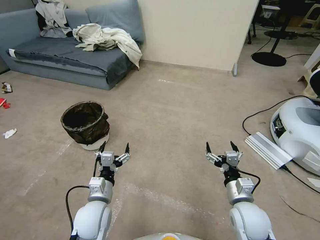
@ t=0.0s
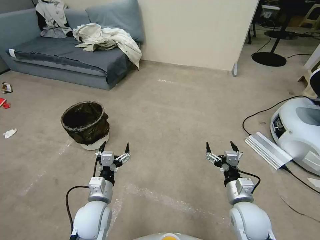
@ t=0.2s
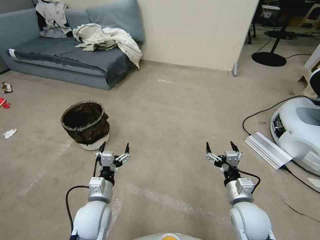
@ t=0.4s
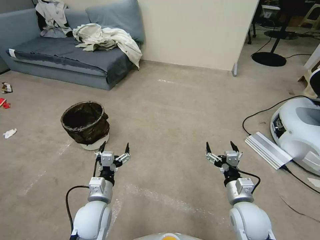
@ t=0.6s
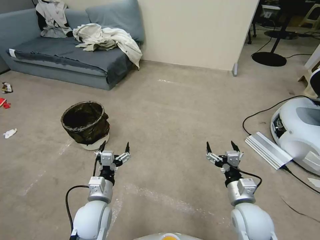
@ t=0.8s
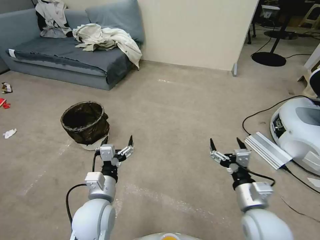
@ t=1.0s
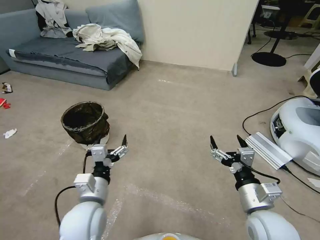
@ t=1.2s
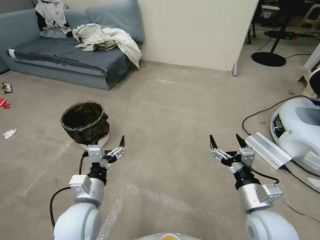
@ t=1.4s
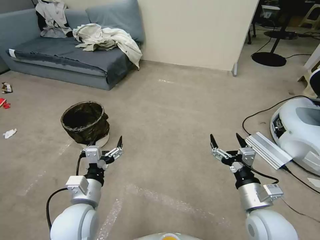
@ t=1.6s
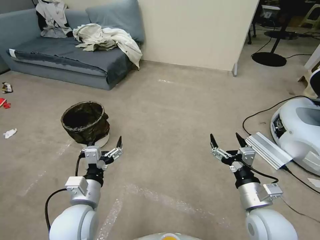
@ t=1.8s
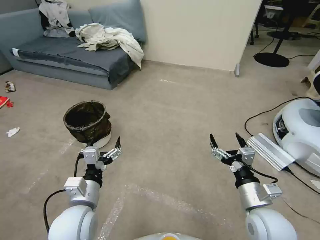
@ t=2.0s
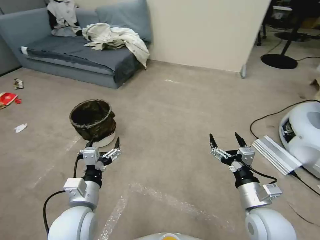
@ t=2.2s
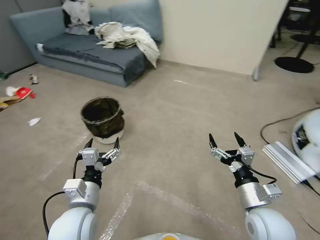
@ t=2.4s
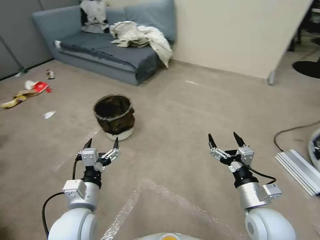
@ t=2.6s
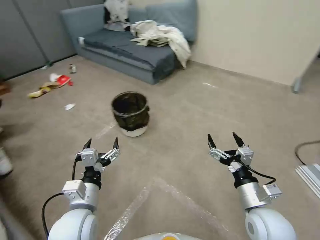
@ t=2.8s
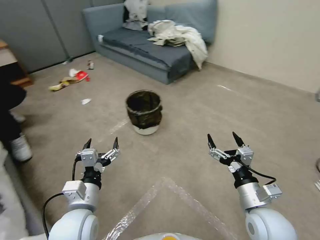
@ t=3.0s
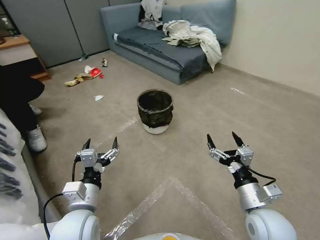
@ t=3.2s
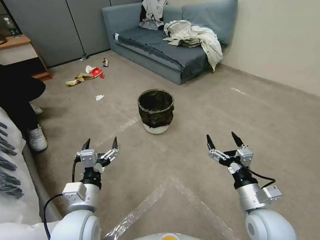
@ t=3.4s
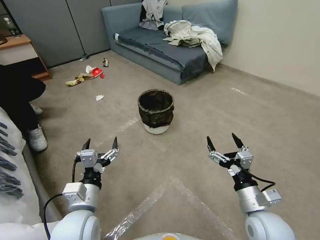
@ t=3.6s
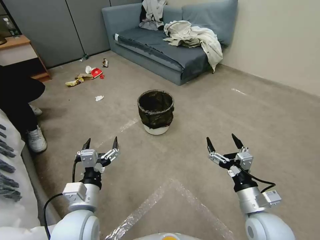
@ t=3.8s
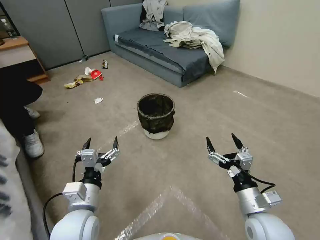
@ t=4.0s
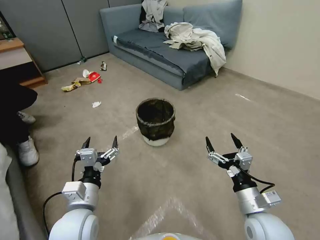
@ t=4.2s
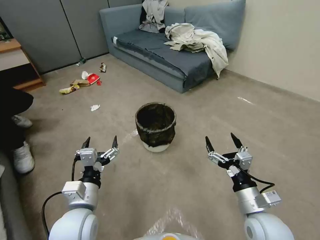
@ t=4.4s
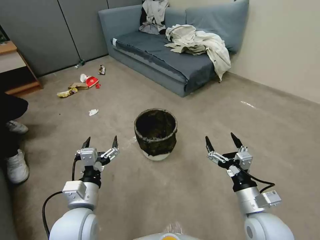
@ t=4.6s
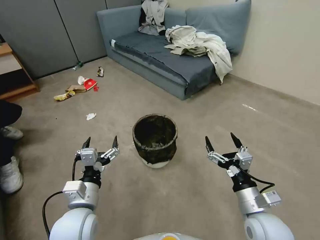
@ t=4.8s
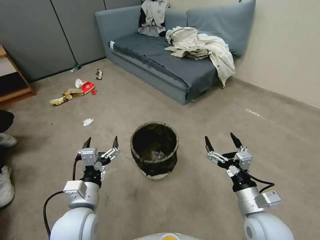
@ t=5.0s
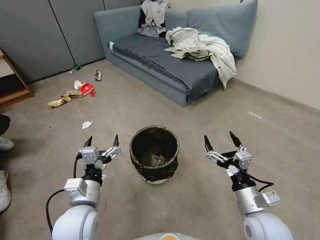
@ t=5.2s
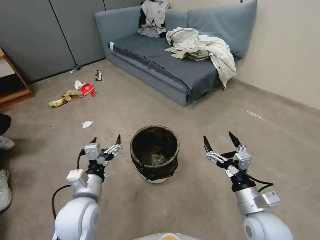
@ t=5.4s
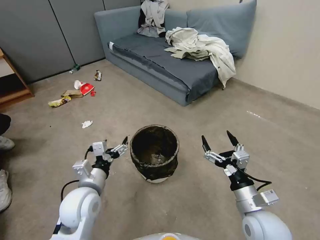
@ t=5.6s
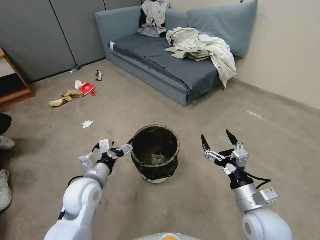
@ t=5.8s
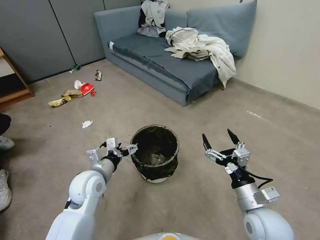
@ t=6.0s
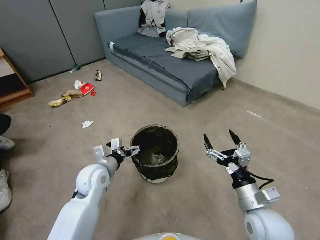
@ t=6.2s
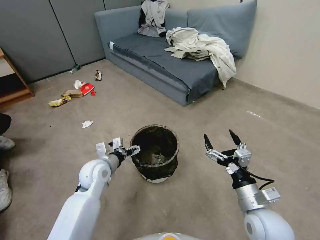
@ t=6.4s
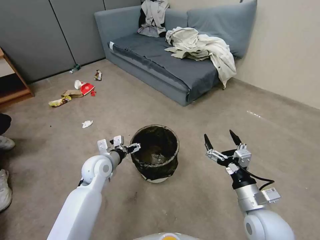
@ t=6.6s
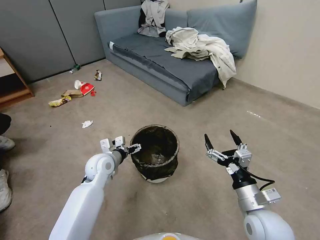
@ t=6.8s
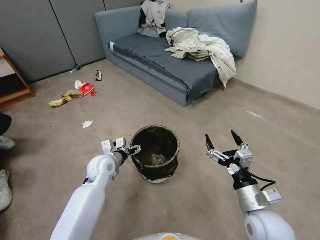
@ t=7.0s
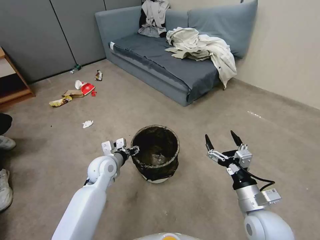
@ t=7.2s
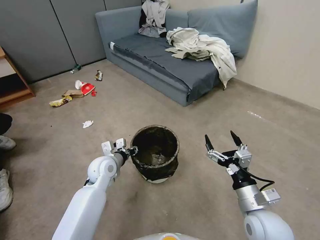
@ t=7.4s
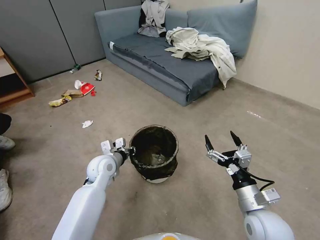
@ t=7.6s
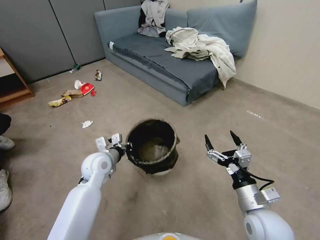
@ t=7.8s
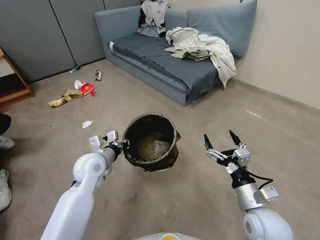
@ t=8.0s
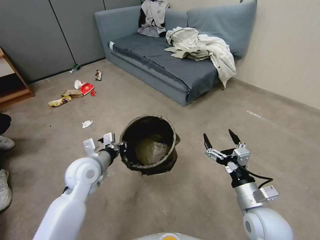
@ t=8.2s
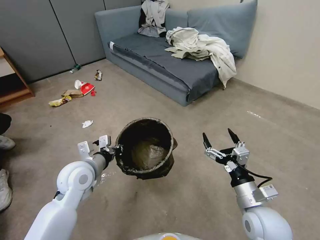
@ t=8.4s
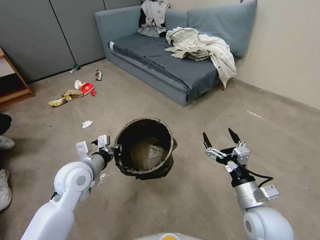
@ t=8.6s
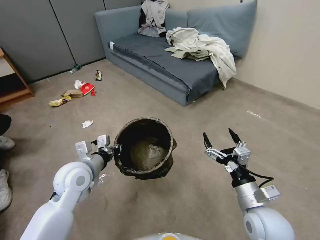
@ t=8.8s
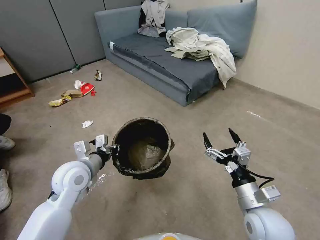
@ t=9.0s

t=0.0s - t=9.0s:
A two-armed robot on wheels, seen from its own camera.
Task of the whole recording: Pick up the trash can from the floor.
t=4.4s - t=6.0s: The left gripper goes roughly 10 cm forward.
t=6.0s - t=7.6s: The left gripper goes roughly 10 cm forward, and closes.
t=7.6s - t=9.0s: The left gripper is displaced upward and backward by about 10 cm.
